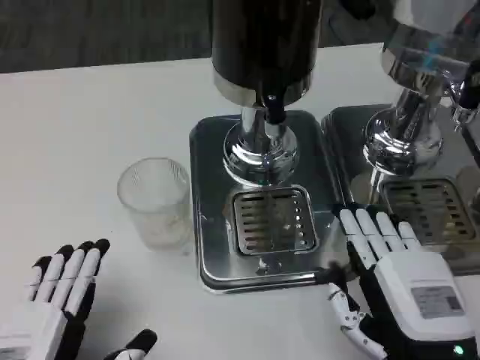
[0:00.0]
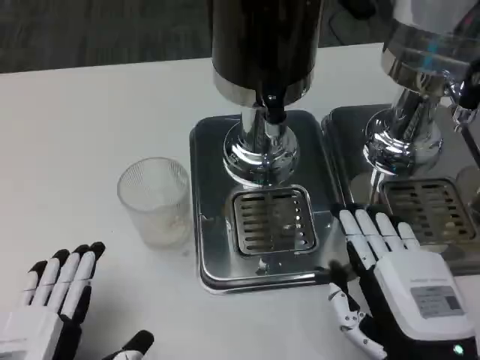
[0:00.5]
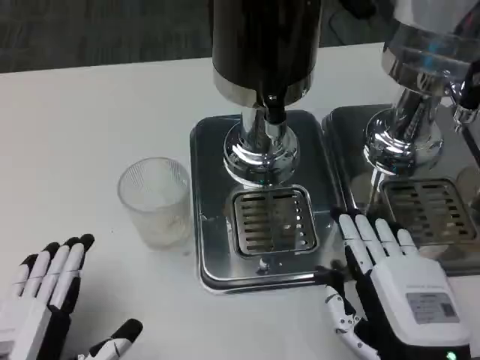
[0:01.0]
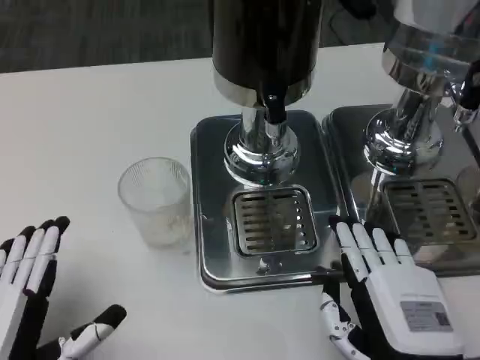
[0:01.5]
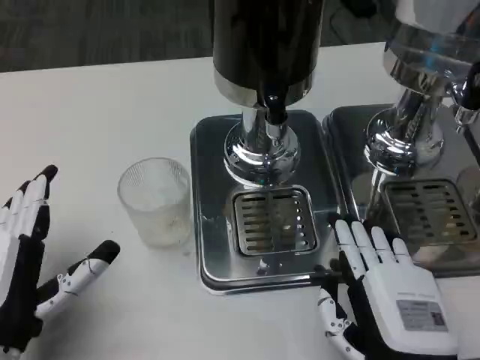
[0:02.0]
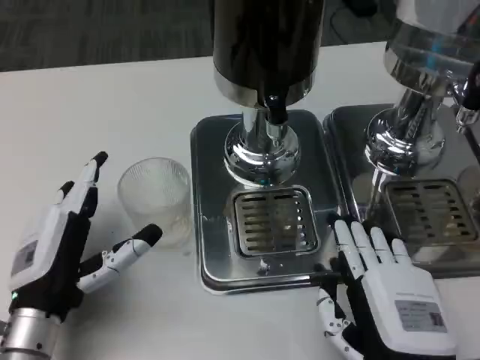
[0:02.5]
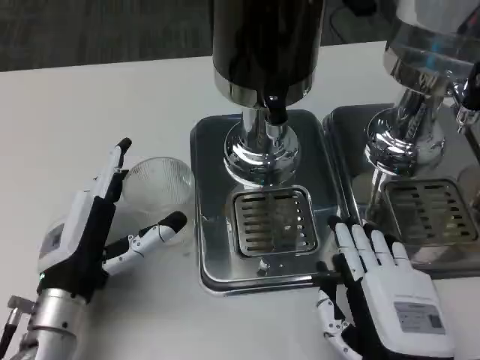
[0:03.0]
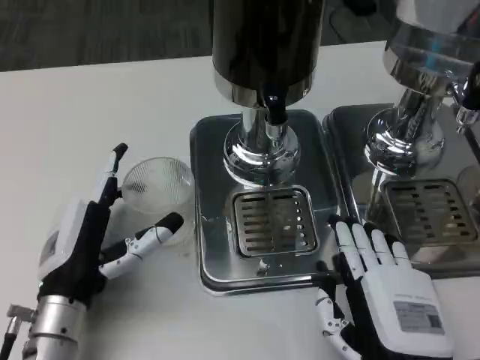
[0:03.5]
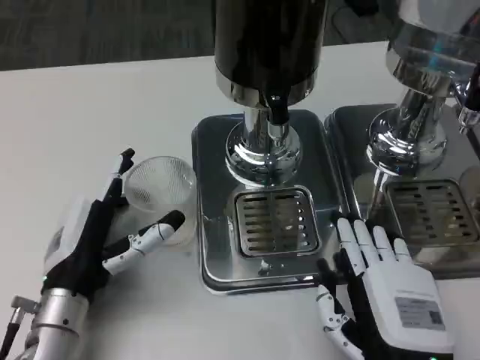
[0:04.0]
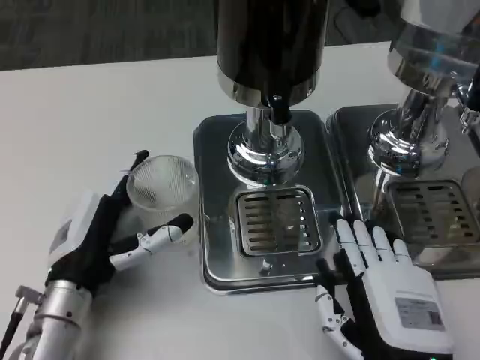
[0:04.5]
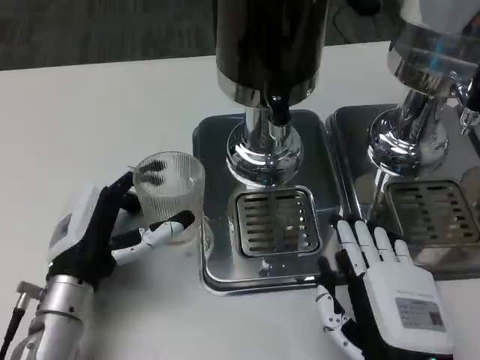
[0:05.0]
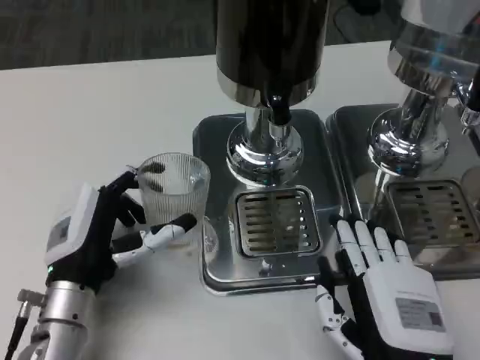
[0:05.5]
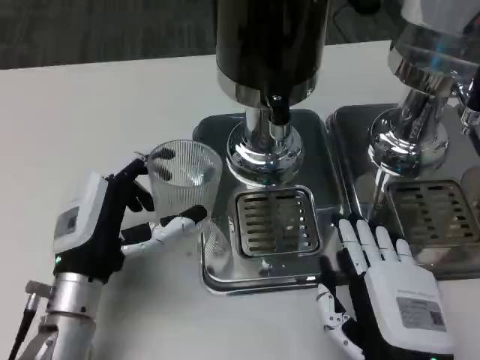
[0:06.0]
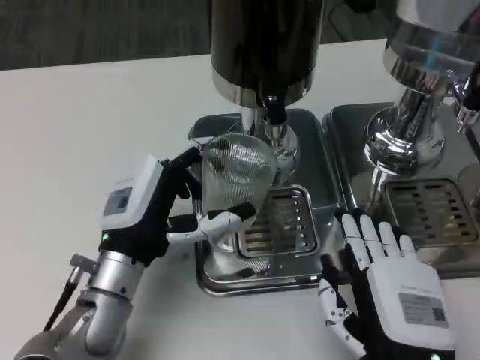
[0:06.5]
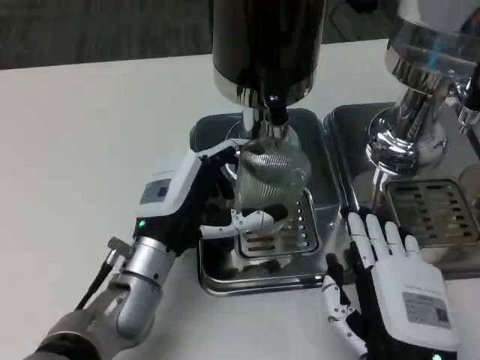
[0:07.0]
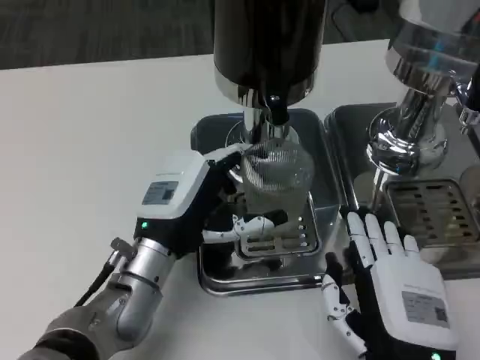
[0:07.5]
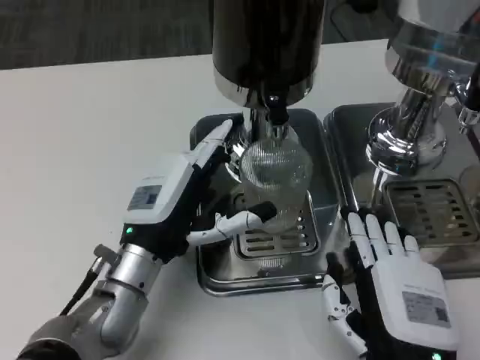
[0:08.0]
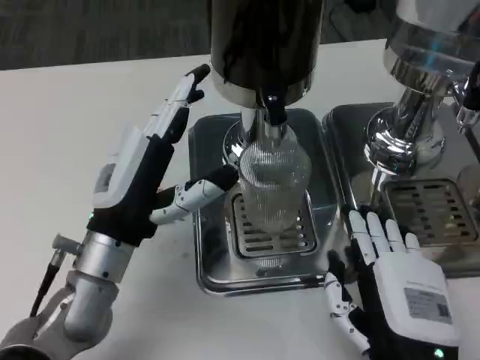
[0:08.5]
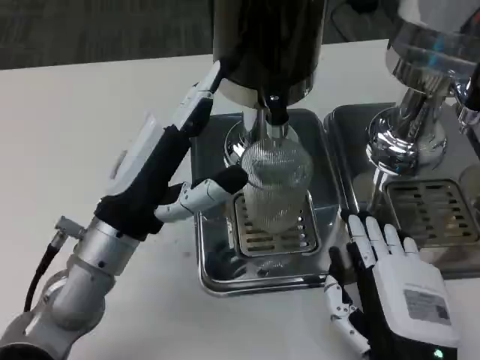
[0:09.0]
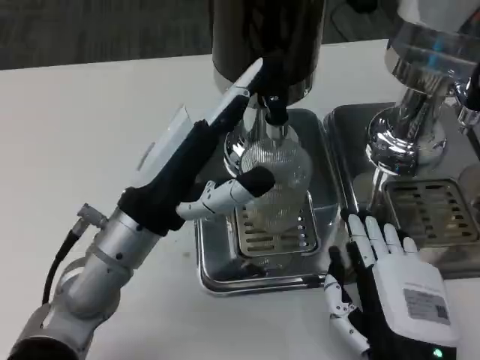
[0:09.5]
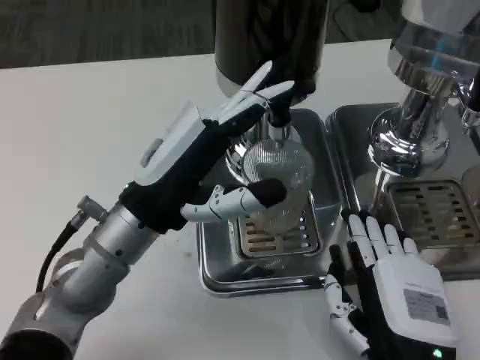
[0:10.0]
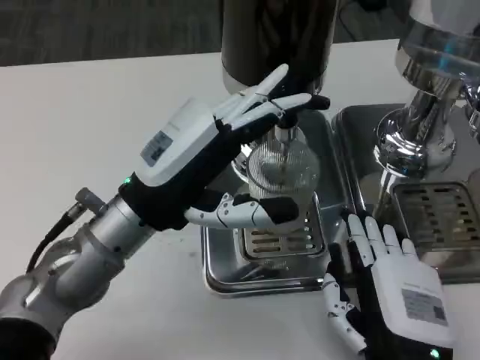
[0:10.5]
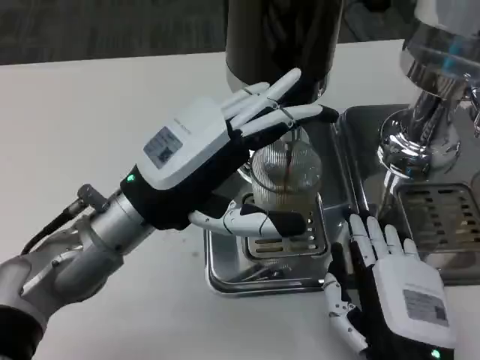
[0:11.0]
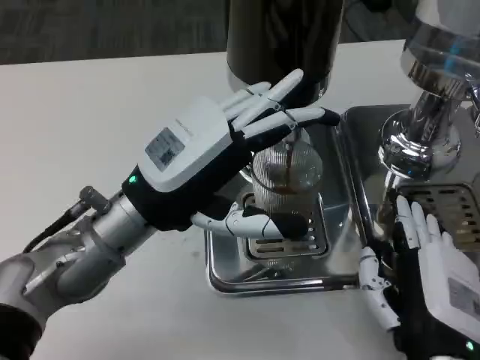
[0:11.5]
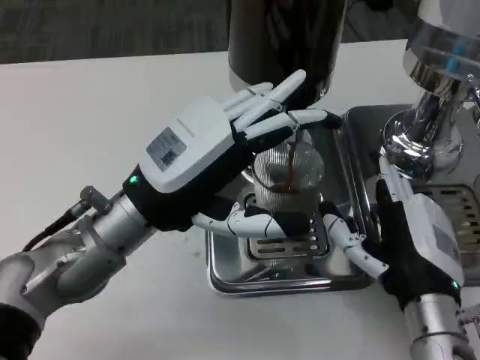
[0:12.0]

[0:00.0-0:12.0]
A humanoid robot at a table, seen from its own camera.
Task of the whole recording: Grasp the cup under the faucet to collect the drink, then remove the cup.
0:00.0 to 0:02.0: The left hand goes about 10 cm forward.
0:02.0 to 0:04.0: The left hand travels forward by roughly 5 cm.
0:04.0 to 0:06.0: The hands stay close to where they were, moving slightly.
0:08.0 to 0:10.0: The left hand moves upward, approximately 5 cm.
0:10.0 to 0:12.0: The right hand heads forward, covering roughly 5 cm.

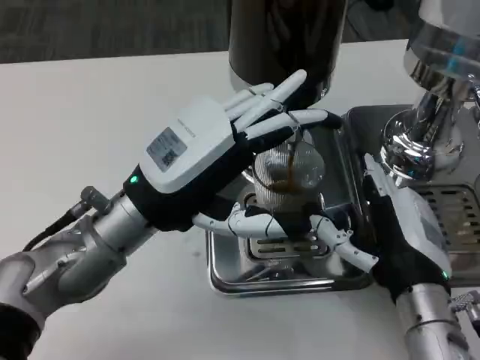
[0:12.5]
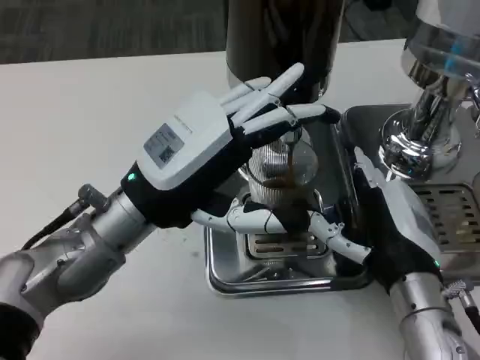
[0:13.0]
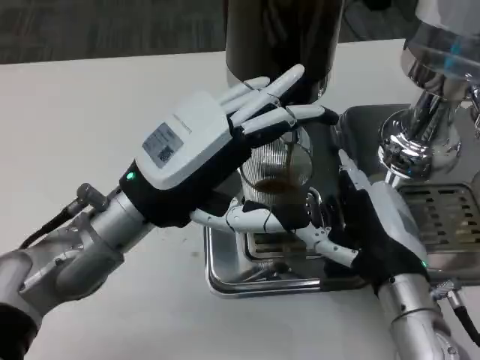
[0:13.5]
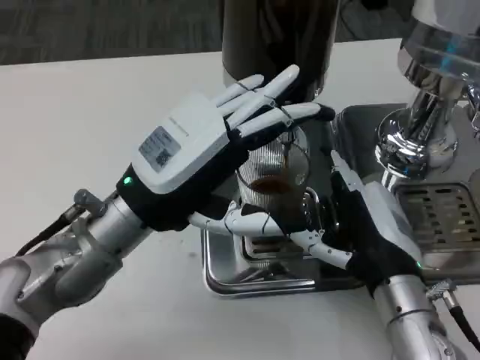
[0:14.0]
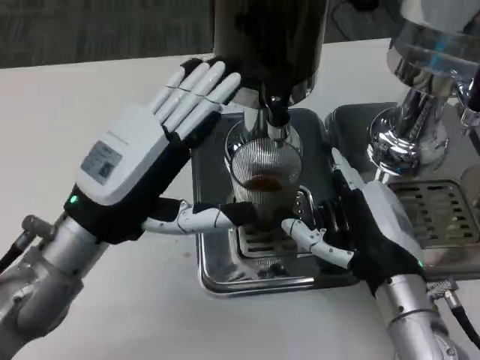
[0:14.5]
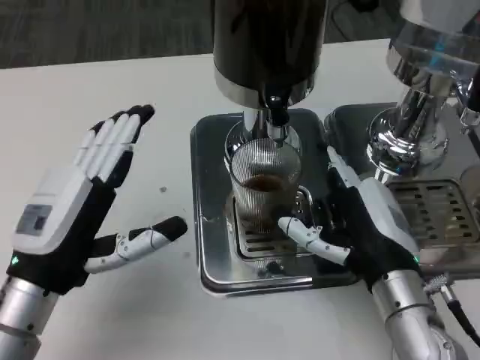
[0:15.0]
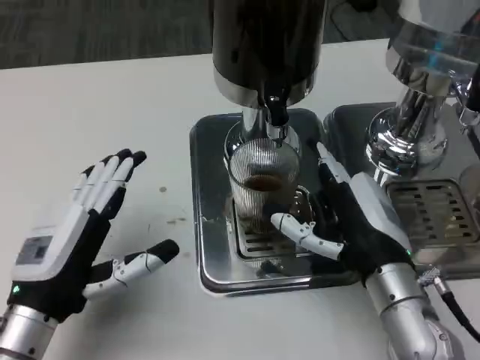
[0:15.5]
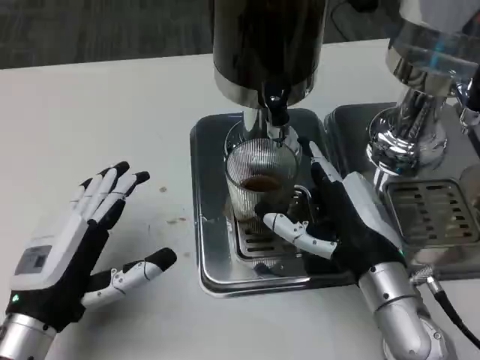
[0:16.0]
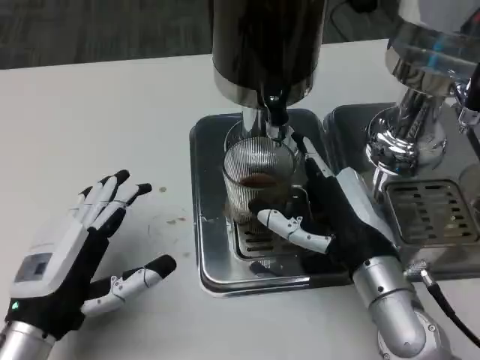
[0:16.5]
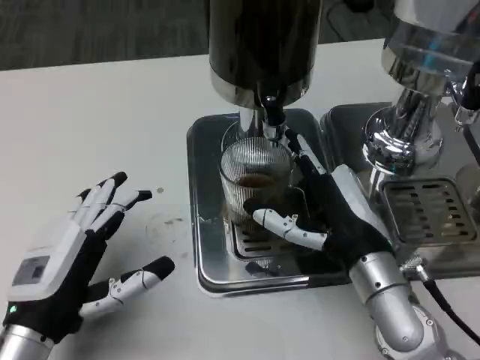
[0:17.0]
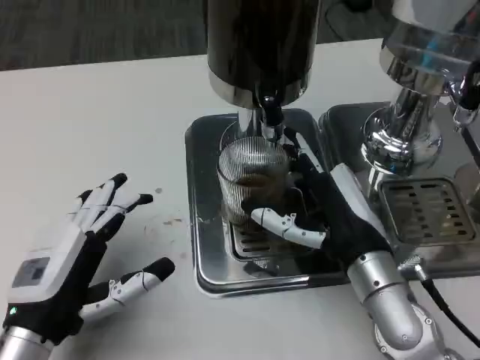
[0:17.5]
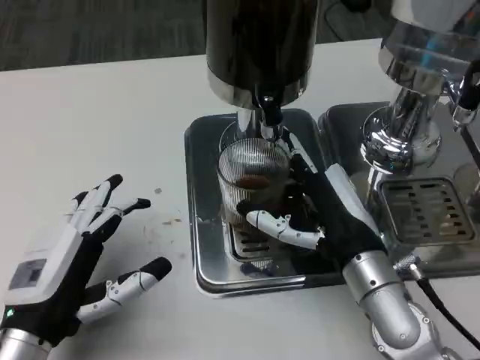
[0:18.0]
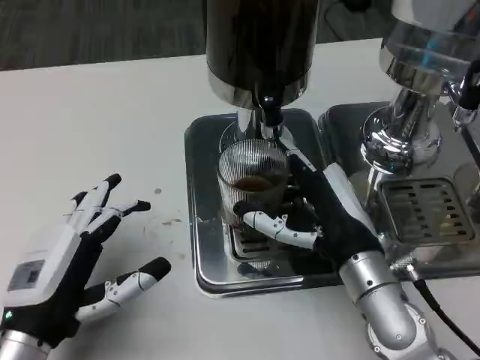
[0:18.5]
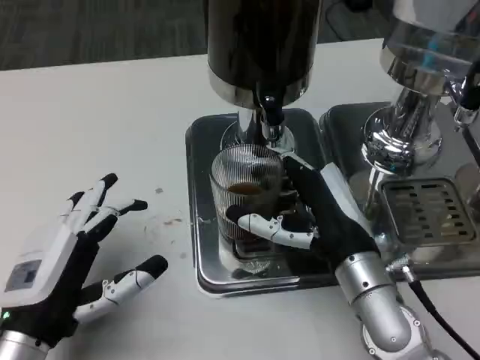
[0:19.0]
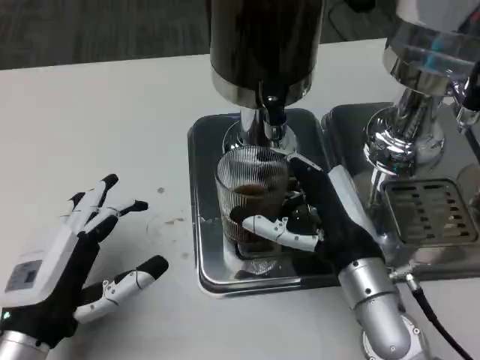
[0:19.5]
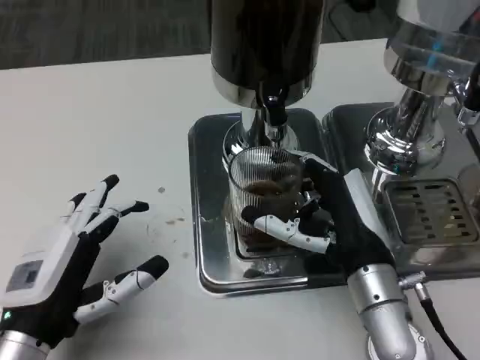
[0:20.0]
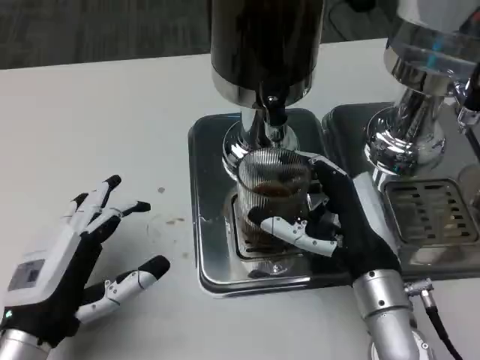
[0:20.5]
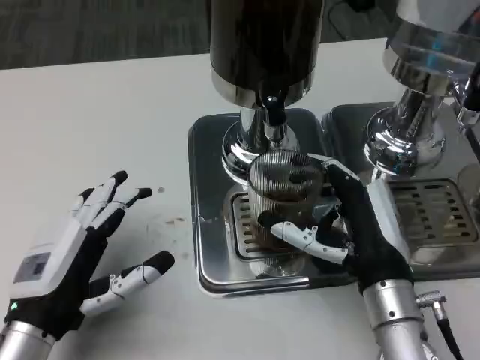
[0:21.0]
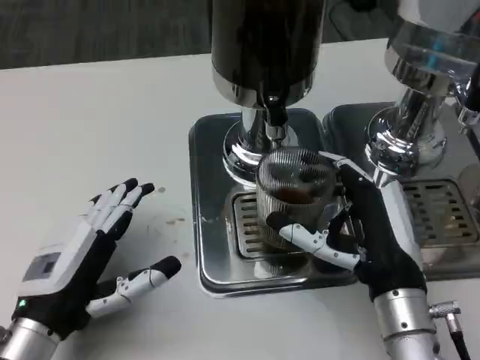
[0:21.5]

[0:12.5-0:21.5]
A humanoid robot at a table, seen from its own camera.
Task of the whole recording: Grasp the cup under the faucet to collect the drink, then remove the cup.
0:14.5 to 0:17.0: The left hand travels backward and downward by roughly 10 cm.
0:17.0 to 0:19.5: The hands stay close to where they were, moving slightly.

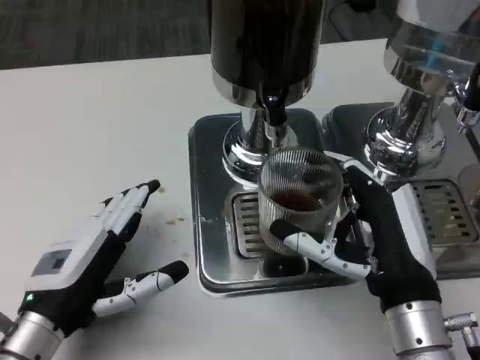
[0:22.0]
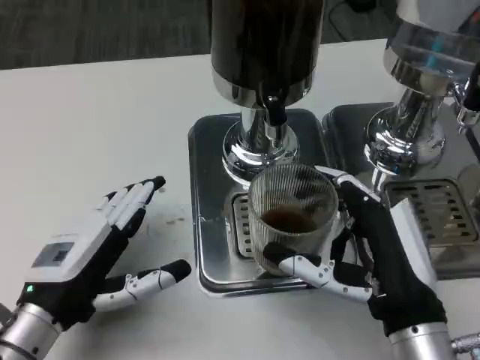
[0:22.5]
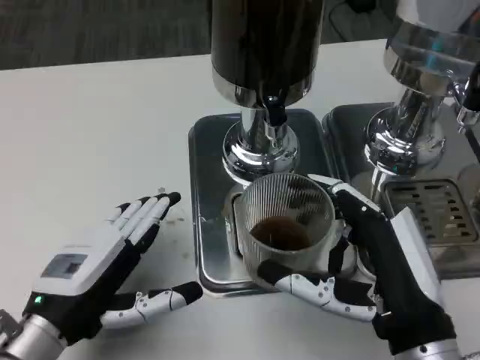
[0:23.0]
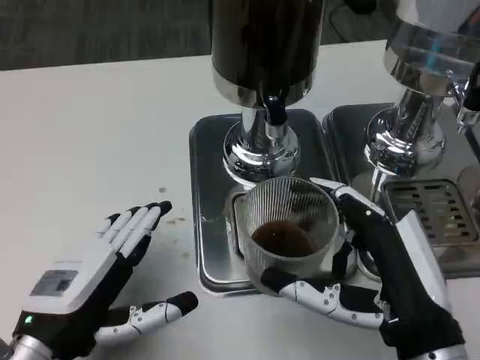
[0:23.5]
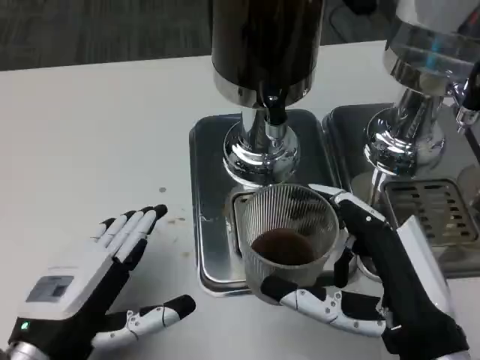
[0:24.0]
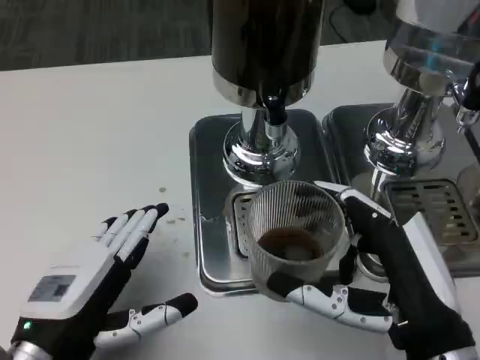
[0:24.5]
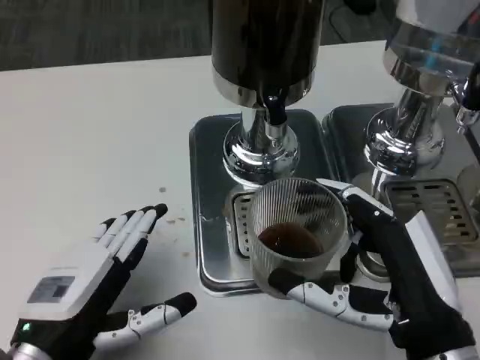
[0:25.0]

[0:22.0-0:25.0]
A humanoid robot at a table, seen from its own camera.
Task of the whole recording: Grasp the cup under the faucet to collect the drink, then remove the cup.
0:22.0 to 0:23.5: The right hand shifts by roughly 5 cm.
0:23.5 to 0:25.0: The two hands keep their place.

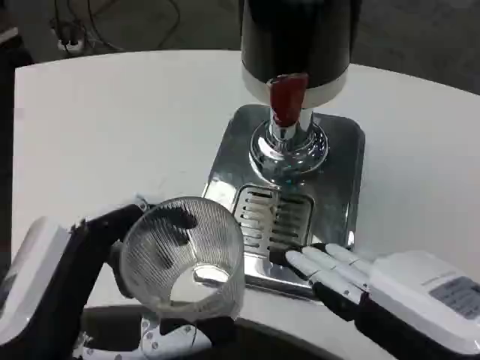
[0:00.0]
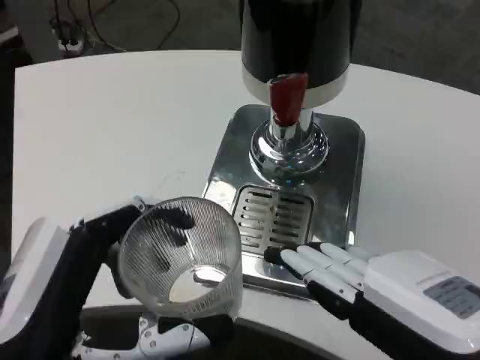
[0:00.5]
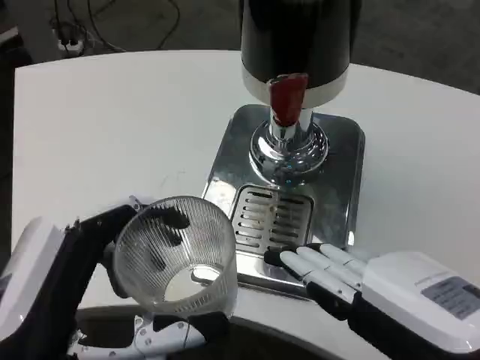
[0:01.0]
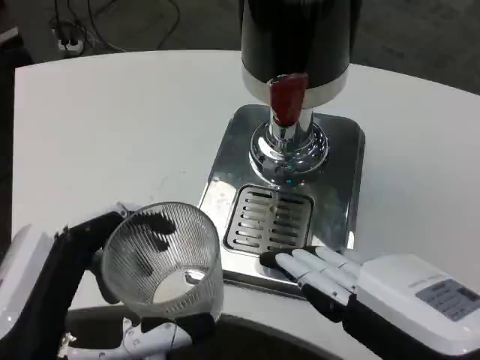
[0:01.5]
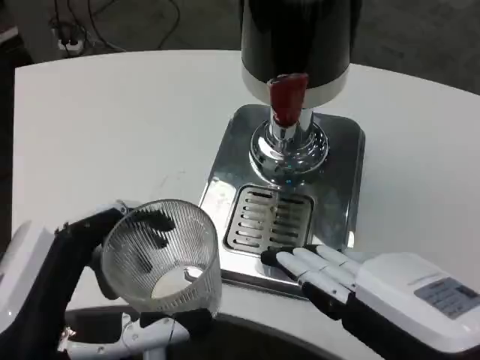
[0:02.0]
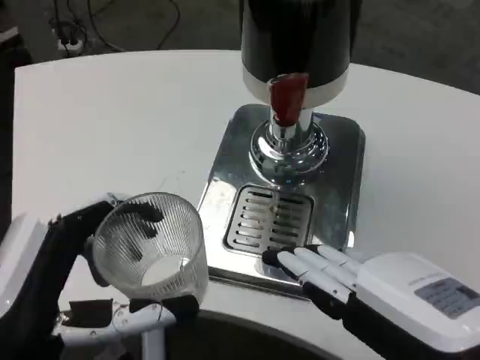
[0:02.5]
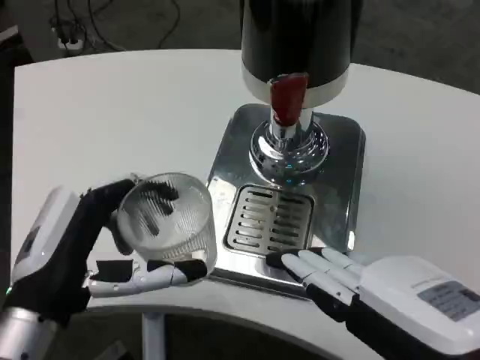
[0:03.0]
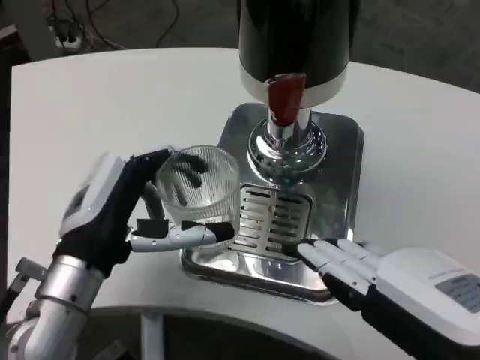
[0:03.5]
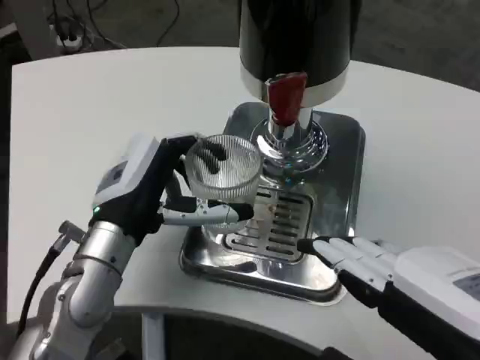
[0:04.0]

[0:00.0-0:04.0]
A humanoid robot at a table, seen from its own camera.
Task of the whole recording: Grasp the cup under the faucet to collect the drink, then remove the cup.
0:00.0 to 0:02.0: The hands stay close to where they were, moving slightly.
0:02.0 to 0:04.0: The left hand moves forward, some 20 cm.
